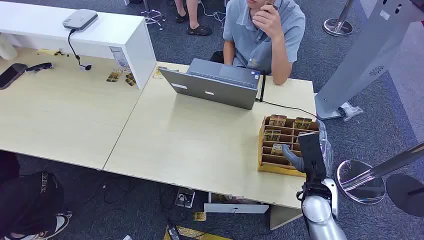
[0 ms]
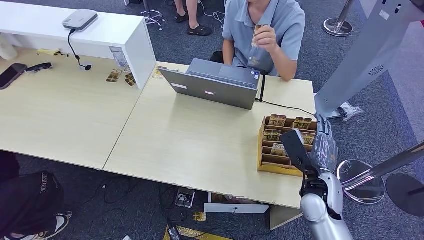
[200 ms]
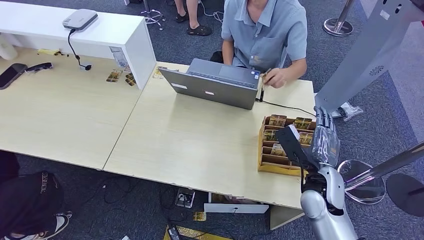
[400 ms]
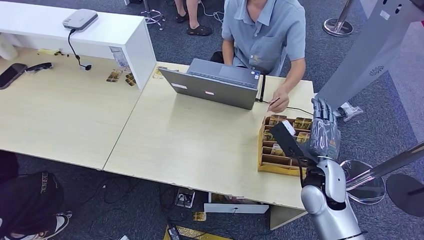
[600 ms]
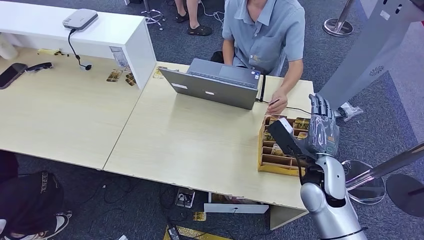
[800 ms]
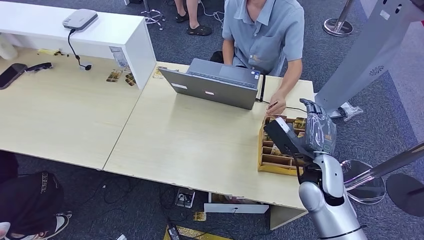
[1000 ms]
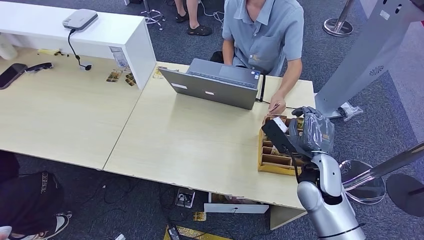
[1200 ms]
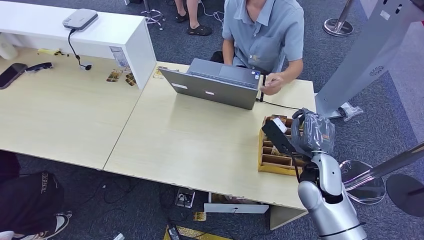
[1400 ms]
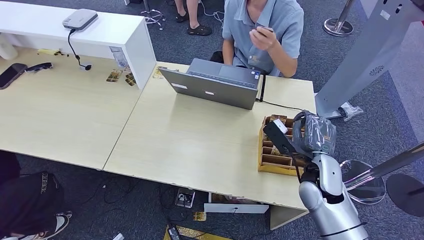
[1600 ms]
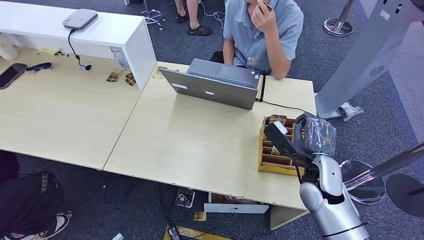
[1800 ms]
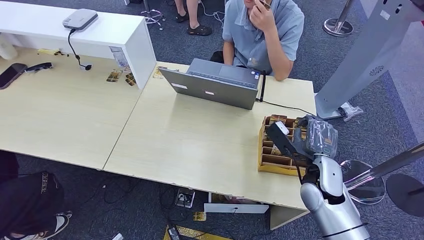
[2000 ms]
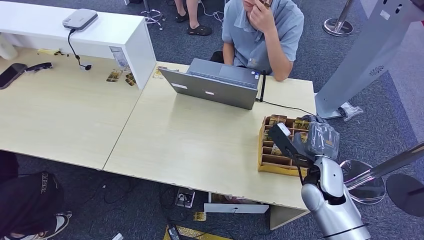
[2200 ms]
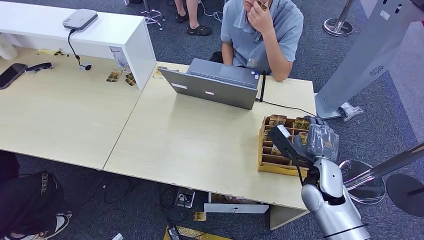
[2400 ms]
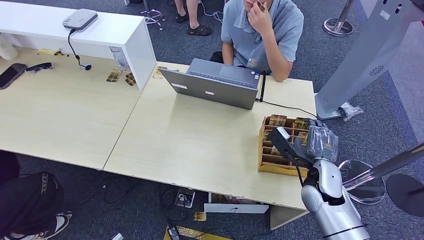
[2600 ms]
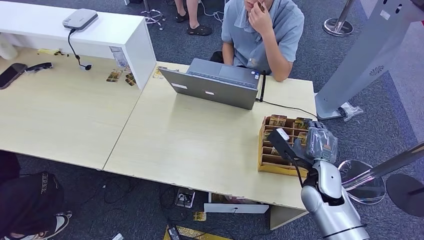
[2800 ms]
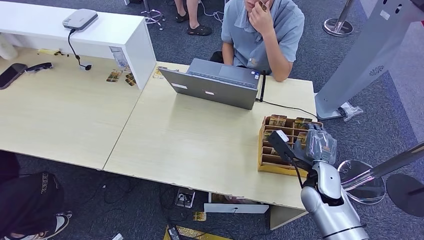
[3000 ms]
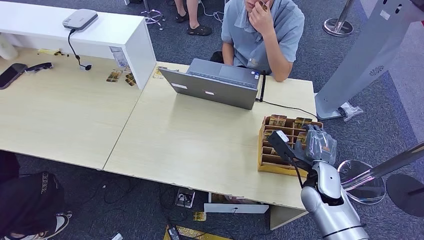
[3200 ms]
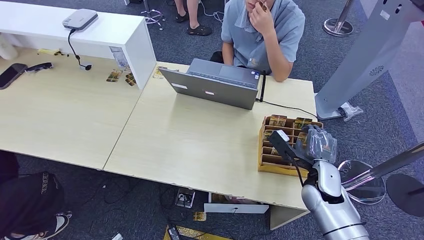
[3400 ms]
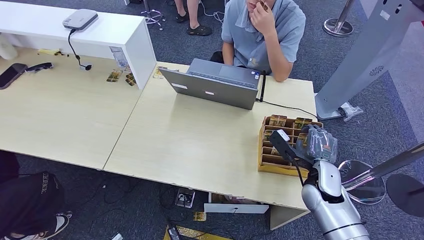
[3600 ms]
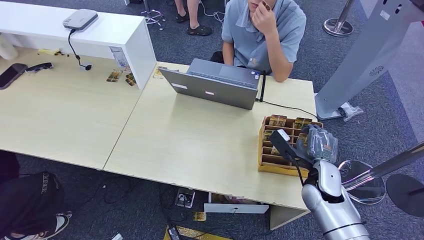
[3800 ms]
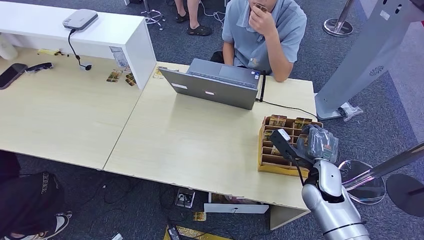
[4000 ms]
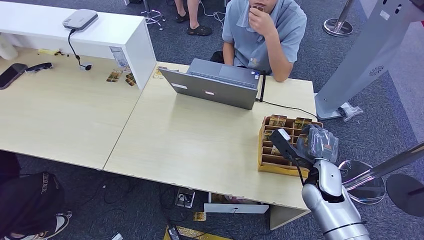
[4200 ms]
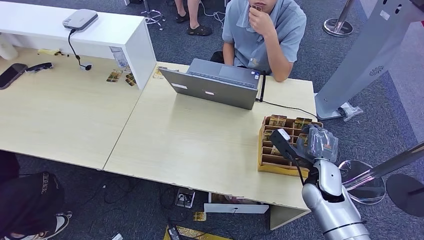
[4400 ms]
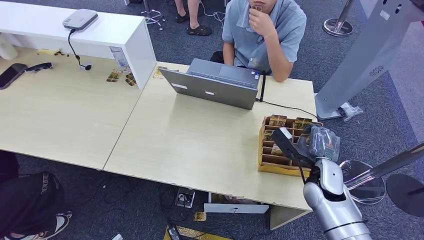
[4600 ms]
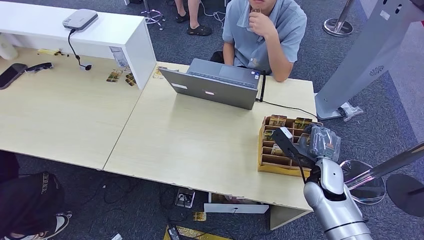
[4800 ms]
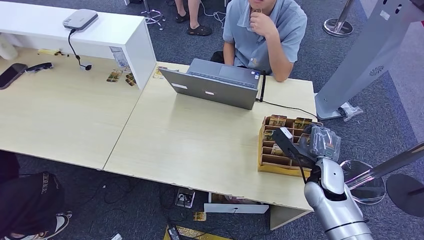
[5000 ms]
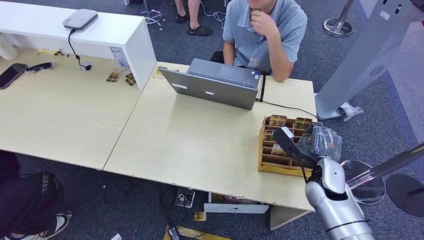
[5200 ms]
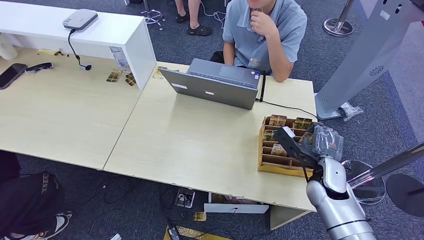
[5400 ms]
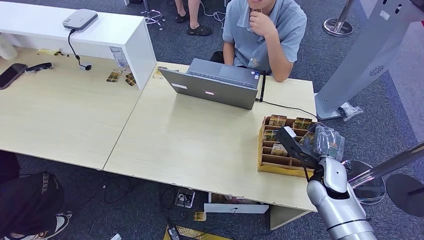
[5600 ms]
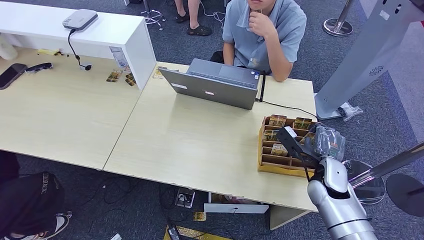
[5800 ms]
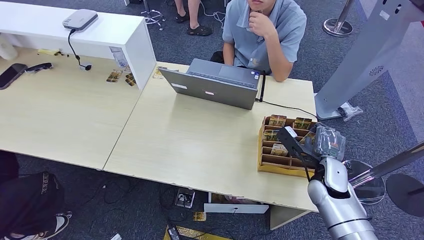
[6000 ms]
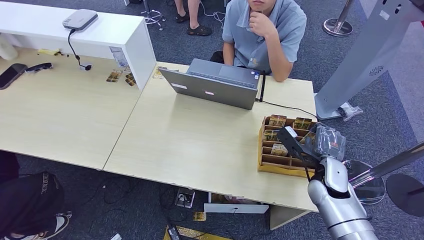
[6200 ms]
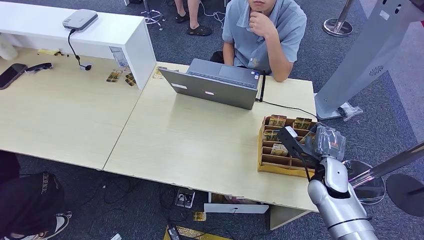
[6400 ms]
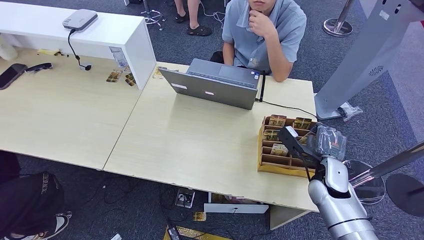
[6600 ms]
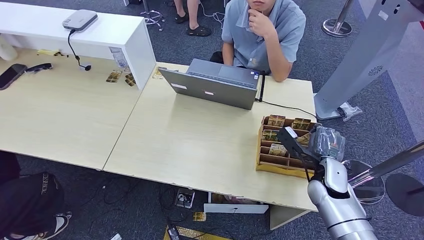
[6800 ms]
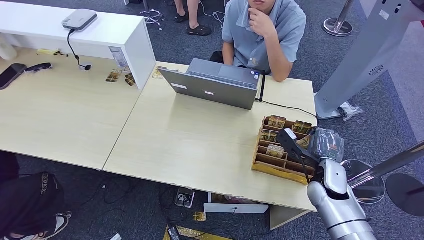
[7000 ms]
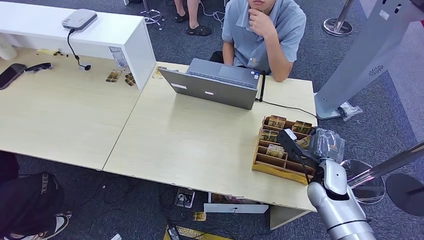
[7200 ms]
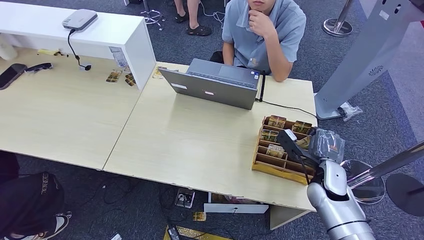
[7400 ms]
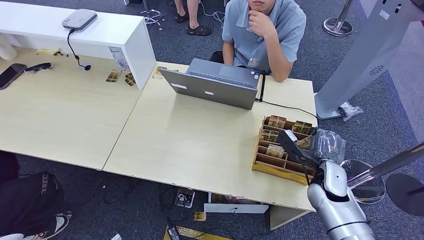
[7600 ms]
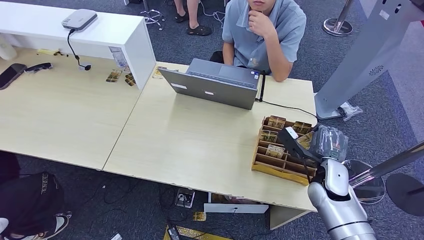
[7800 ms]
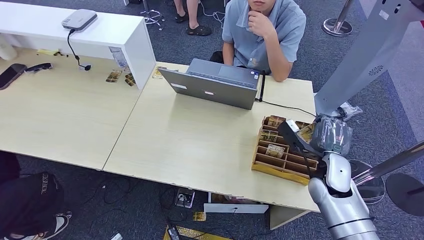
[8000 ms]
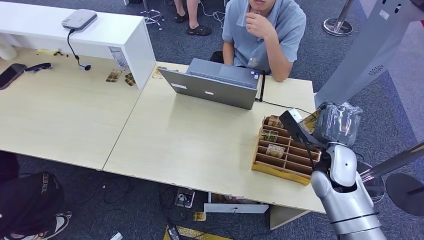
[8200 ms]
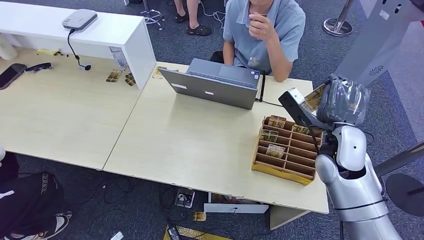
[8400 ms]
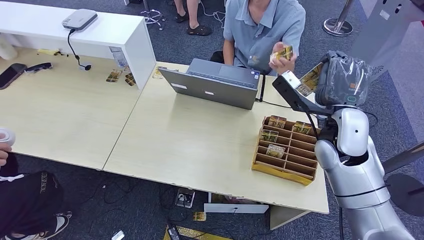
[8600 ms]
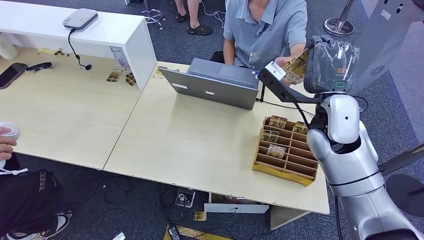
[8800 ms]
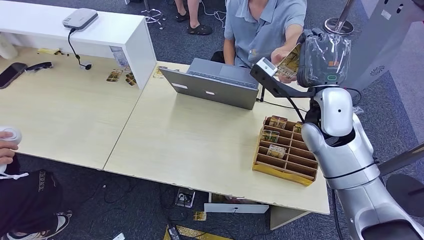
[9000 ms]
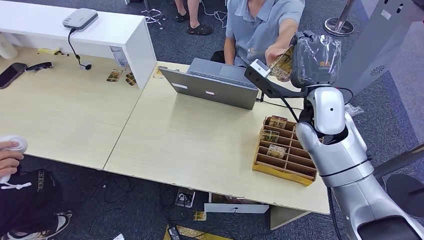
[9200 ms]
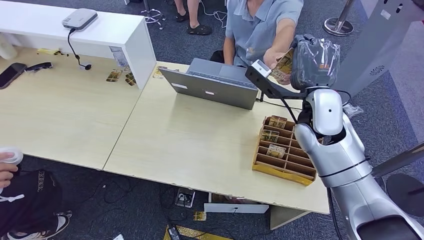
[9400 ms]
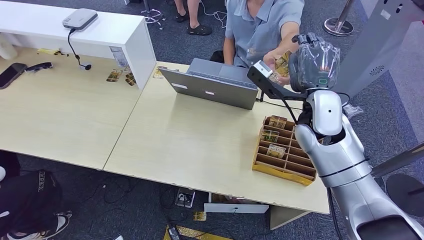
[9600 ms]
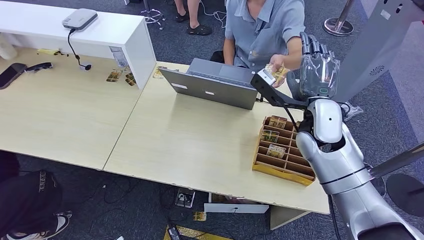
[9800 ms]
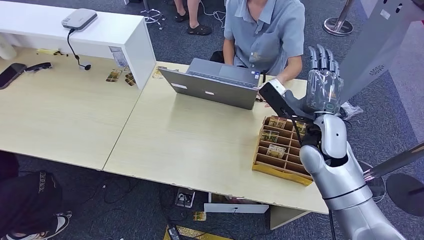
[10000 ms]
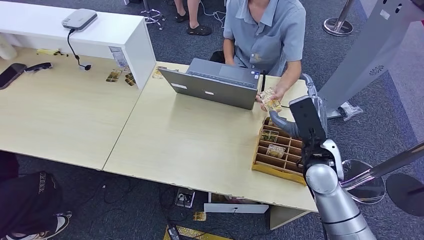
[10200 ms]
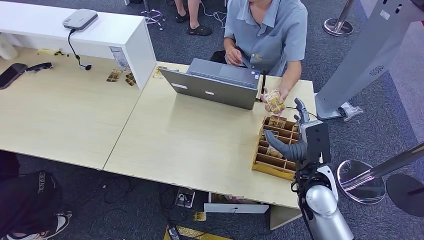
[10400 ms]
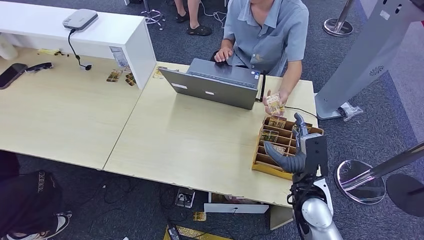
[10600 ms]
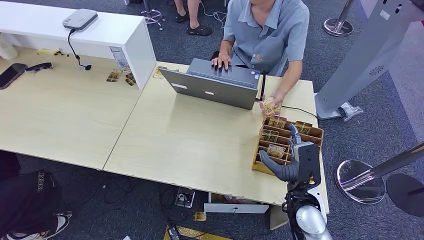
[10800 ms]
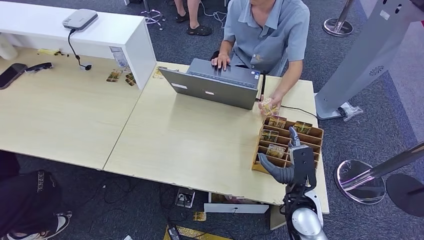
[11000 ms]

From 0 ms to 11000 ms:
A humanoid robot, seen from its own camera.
Task of the whole recording: Pick up the card and hand it over to the target person.
Step, from 0 ms to 8800 ms: Pick up the key card from the card box.
Step, from 9000 ms to 11000 ms: Hand the key card to the target.
From 1600 ms to 6200 ms: The hands stay close to where they were, moving slightly.
From 6200 ms to 7800 ms: The right hand is displaced upward by some 10 cm.
From 7800 ms to 9400 ms: The right hand travels upward, to the left and forward by some 15 cm.
From 9400 ms to 11000 ms: The right hand is displaced downward and backward by roughly 25 cm. The left hand is displaced to the right by some 5 cm.
